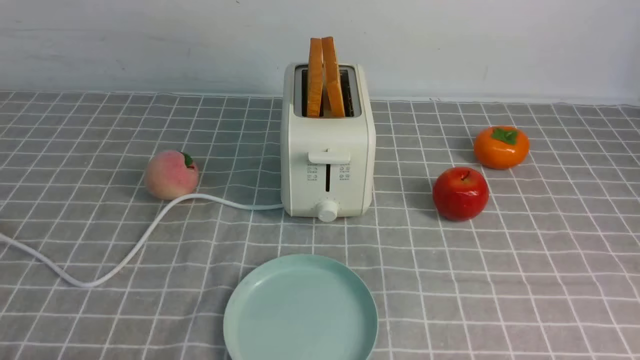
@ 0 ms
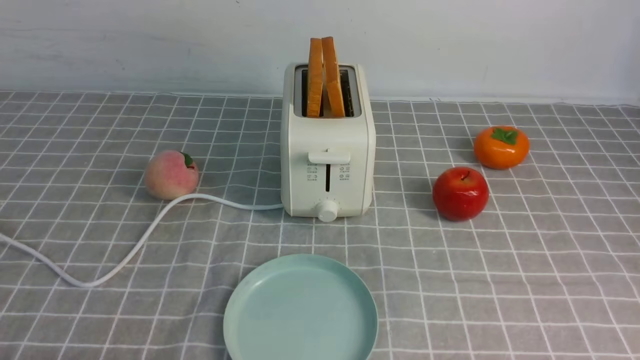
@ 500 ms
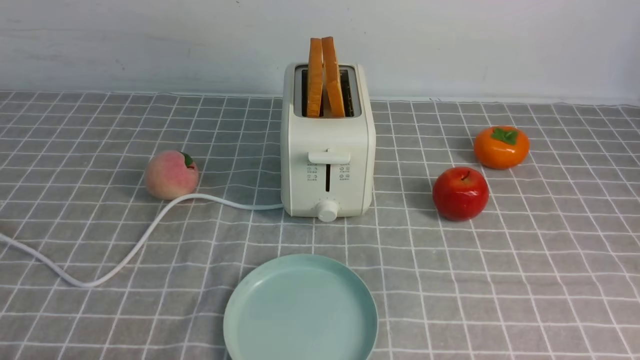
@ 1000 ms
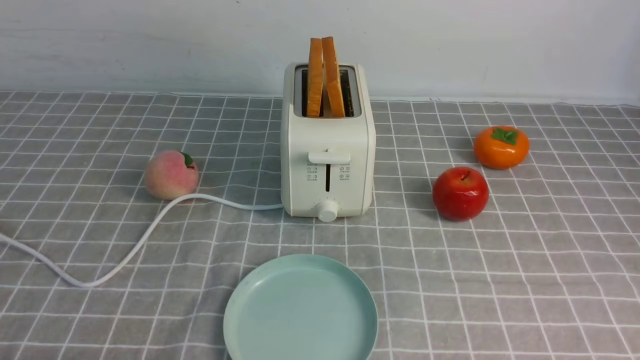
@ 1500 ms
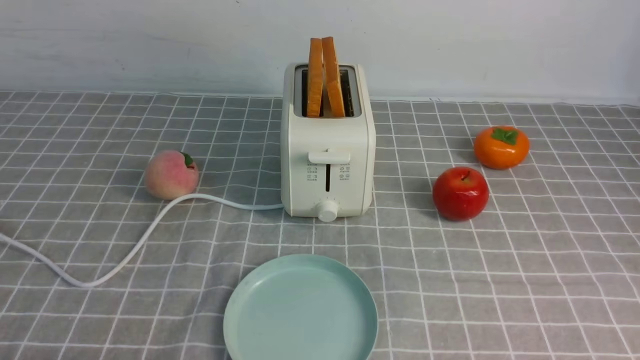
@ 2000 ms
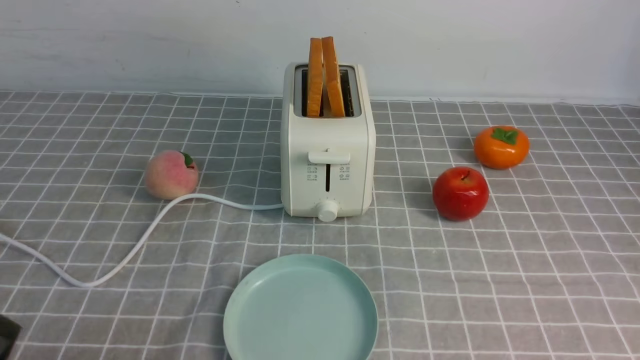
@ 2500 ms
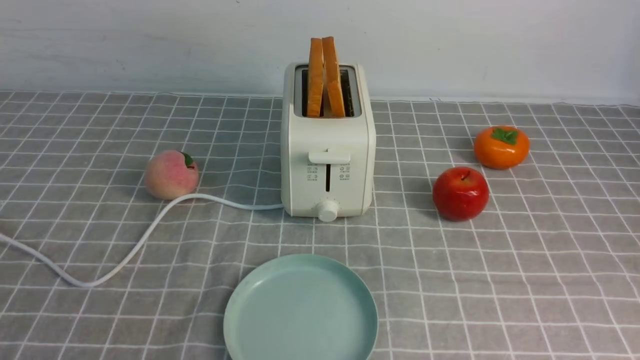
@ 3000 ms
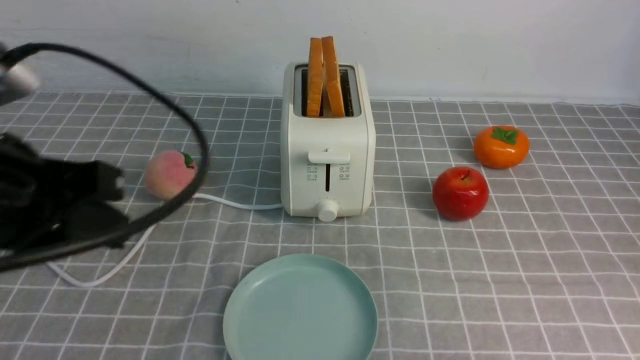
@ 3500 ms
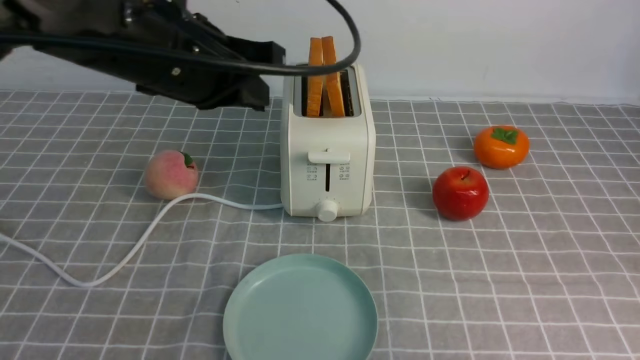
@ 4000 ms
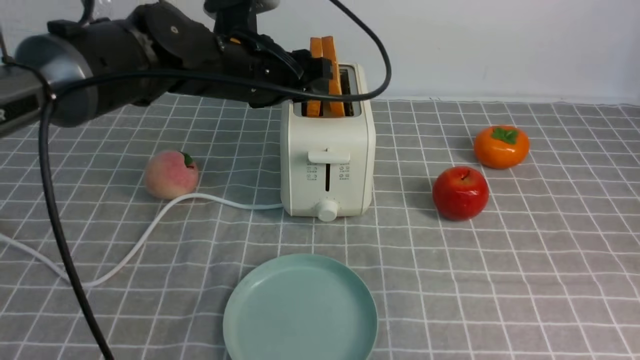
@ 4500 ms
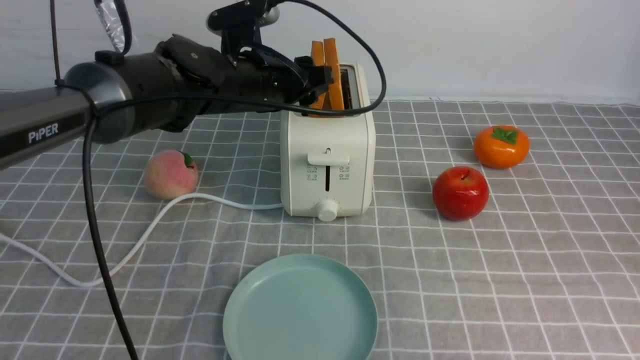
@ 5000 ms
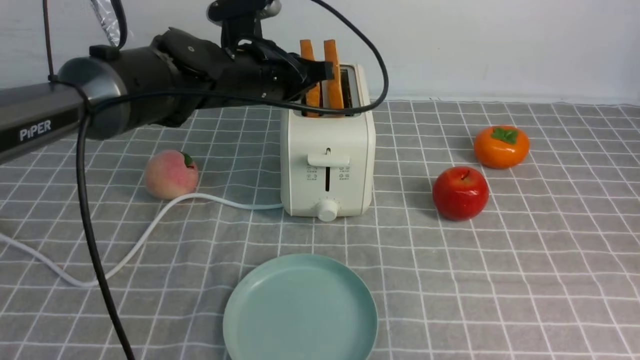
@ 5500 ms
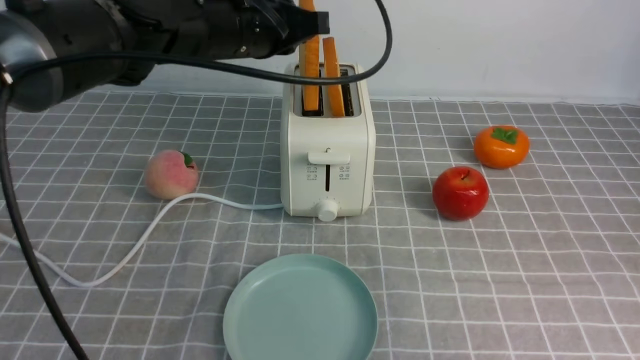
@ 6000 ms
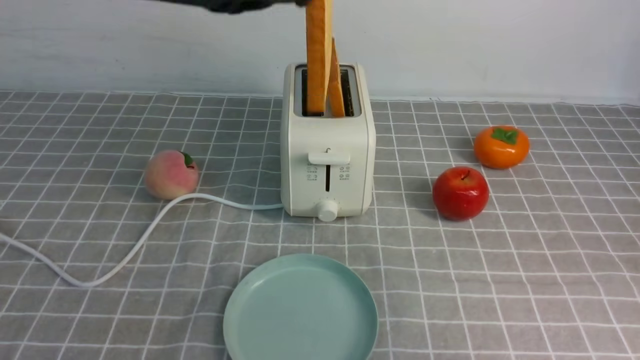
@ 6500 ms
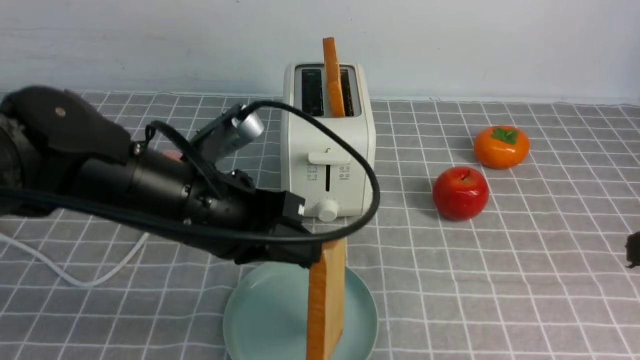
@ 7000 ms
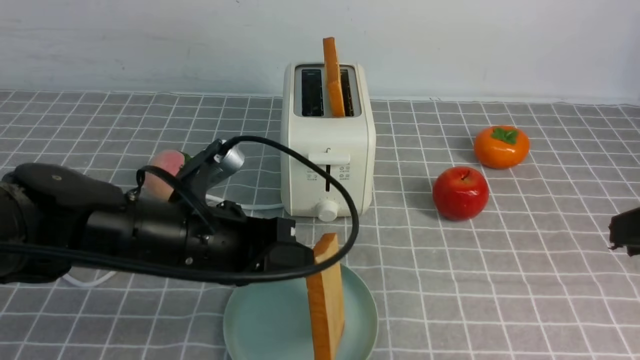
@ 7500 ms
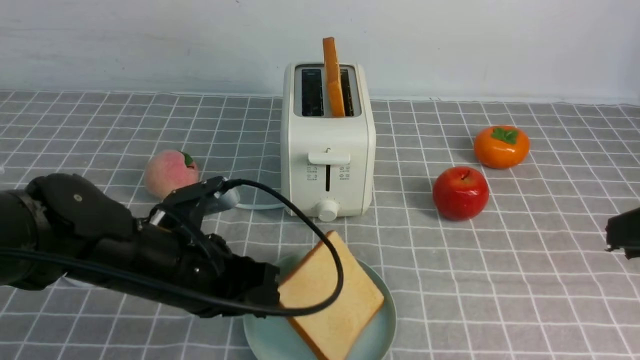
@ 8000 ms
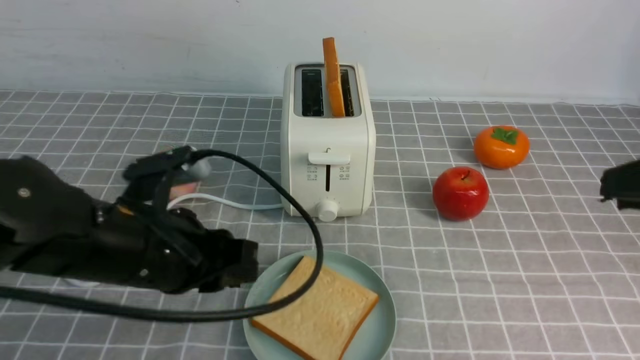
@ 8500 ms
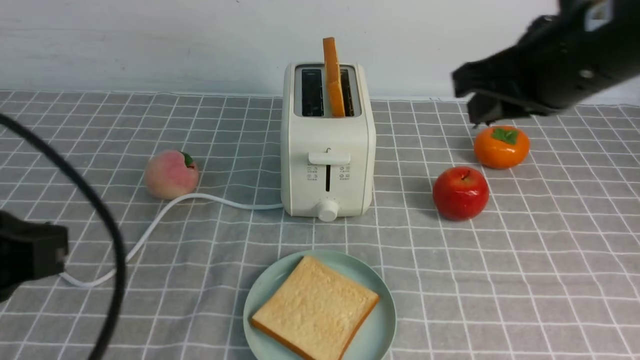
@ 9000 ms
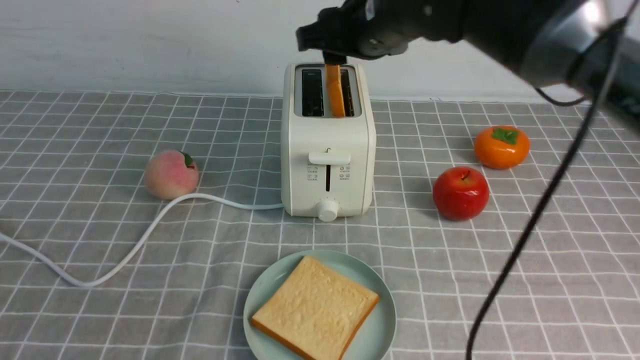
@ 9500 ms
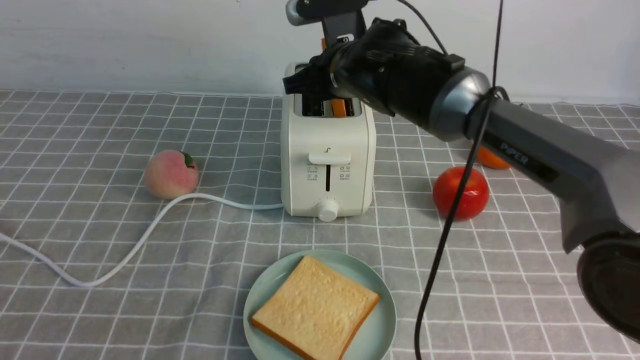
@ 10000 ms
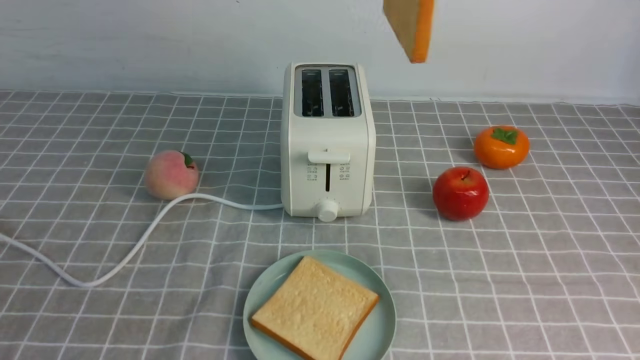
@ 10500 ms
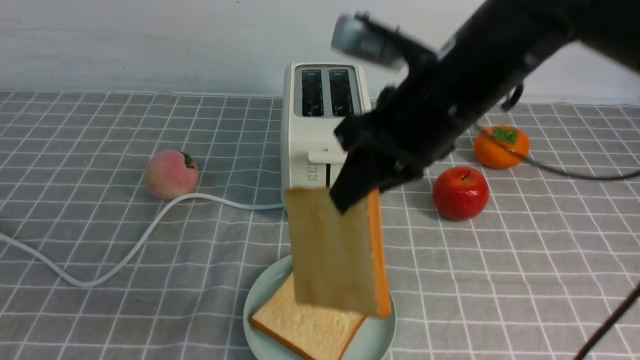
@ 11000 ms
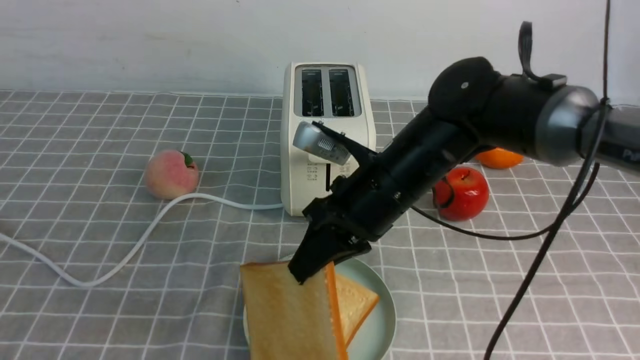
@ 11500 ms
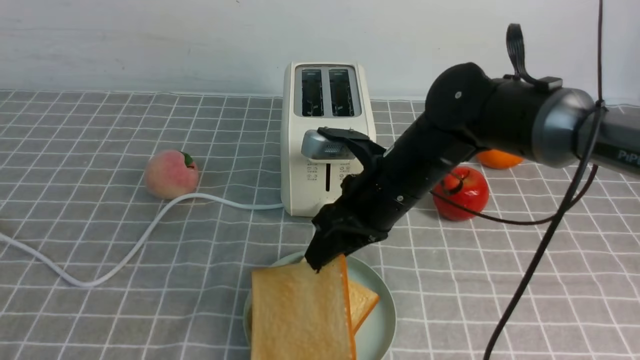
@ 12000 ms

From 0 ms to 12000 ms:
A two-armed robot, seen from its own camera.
Task of the whole recording: take toasted bread from bread machine on grey coffee table place on plate.
Step, from 0 ms to 6000 ms: use the left arm to take out a slice of bread.
Step, from 6500 ms to 8000 ms: use the left arm to put a slice of bread into the empty plate.
Step, from 8500 ms to 10000 ms: use the right arm to take out a slice of bread.
From 2000 ms to 4000 ms: The left gripper heads forward, upward and to the right, covering some 35 cm, and closes its fingers. Meanwhile the right gripper heads upward and forward, covering some 20 cm, and closes.
From 4000 ms to 6000 ms: The left gripper goes roughly 10 cm forward, and opens, then closes once more.
From 6000 ms to 8000 ms: The left gripper travels backward and downward by about 20 cm.
From 8000 ms to 10000 ms: The left gripper goes some 25 cm backward, upward and to the left, while the right gripper is displaced forward and to the left by about 35 cm, and opens its fingers.
From 10000 ms to 12000 ms: The right gripper shifts roughly 10 cm backward, reaches some 15 cm upward, then returns, and closes, then opens again.

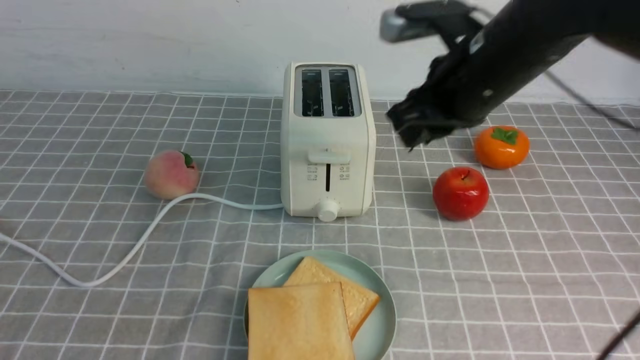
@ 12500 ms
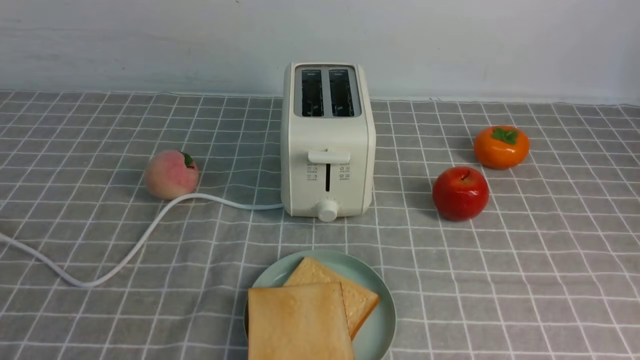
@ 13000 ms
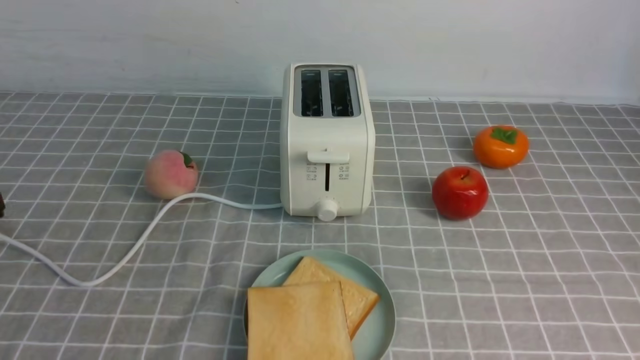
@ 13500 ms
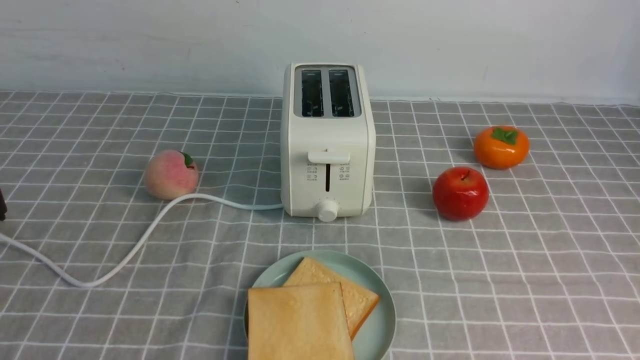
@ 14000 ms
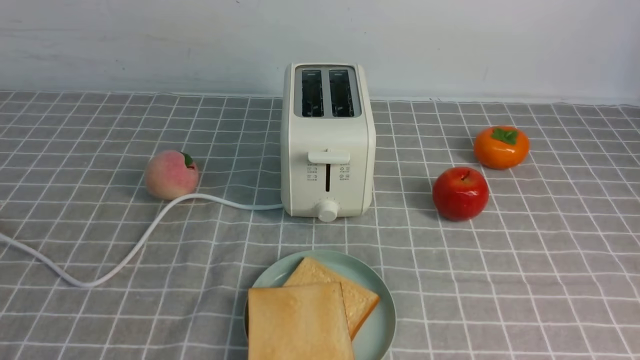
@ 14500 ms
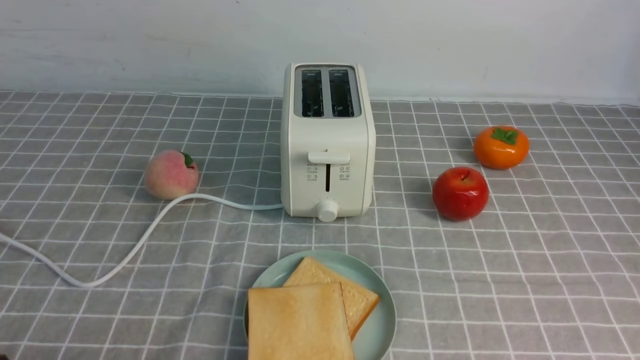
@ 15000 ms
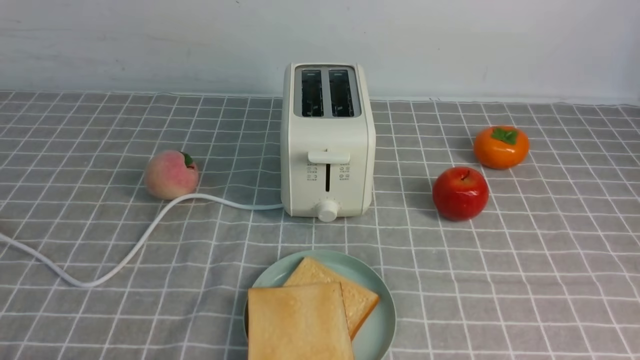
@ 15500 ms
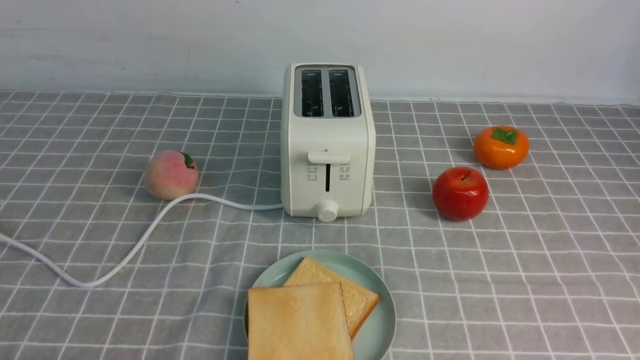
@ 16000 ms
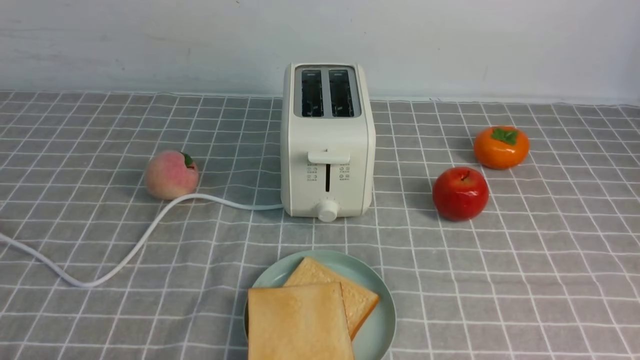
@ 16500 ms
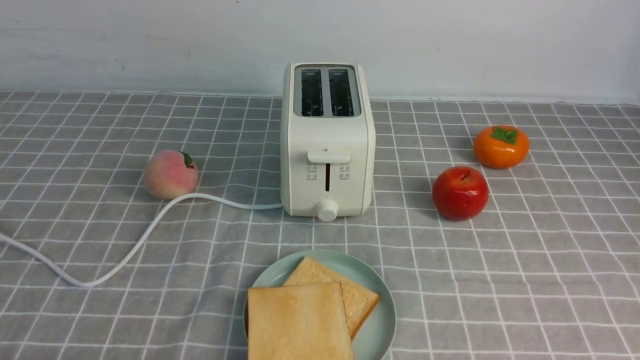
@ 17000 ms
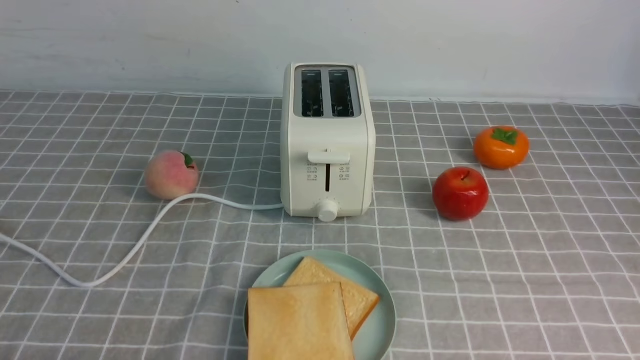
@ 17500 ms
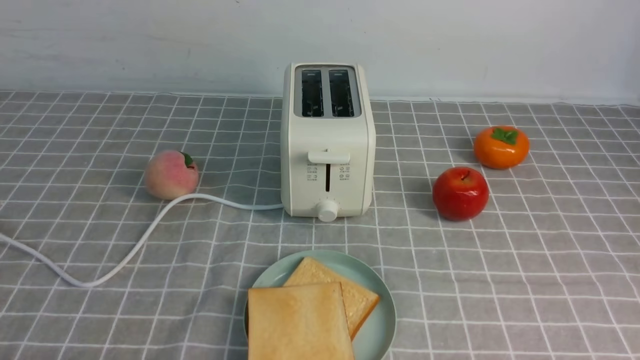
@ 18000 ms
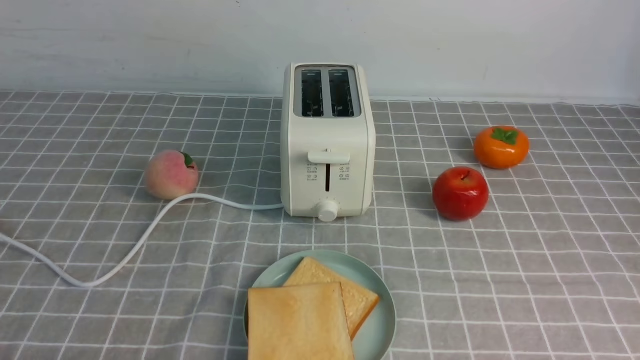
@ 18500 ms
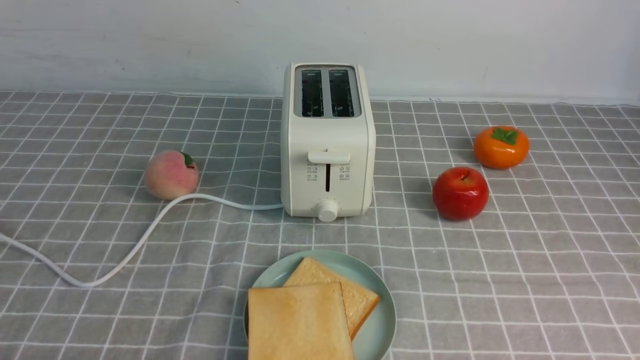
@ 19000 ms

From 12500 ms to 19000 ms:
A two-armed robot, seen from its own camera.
Task of the whole recording: take toasted bread from bread machine on grey coffee table place on plate.
From 12500 ms to 14500 ms: The right gripper is displaced backward and to the right by approximately 40 cm, and closes.

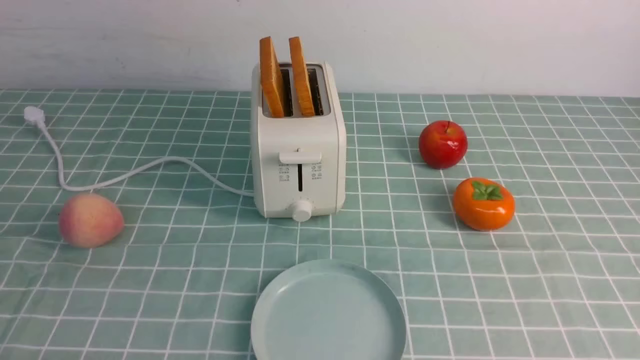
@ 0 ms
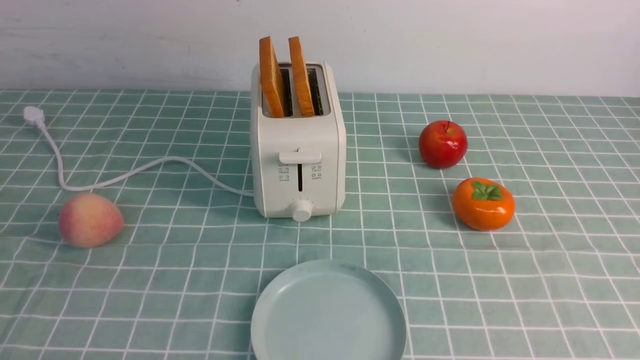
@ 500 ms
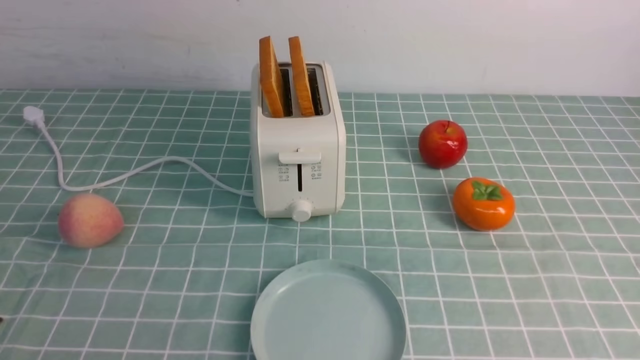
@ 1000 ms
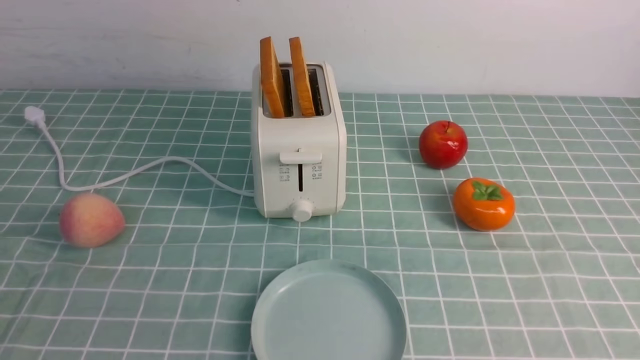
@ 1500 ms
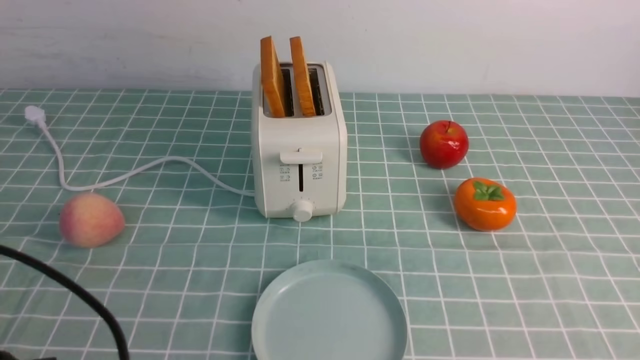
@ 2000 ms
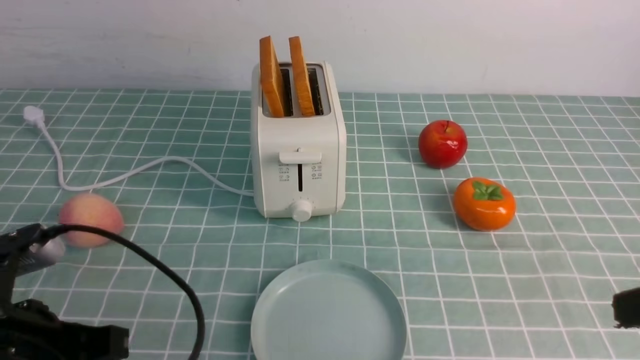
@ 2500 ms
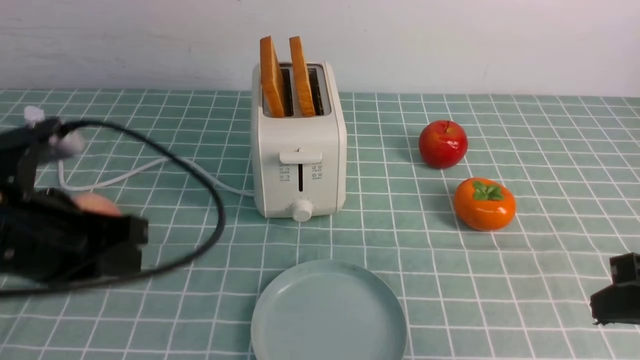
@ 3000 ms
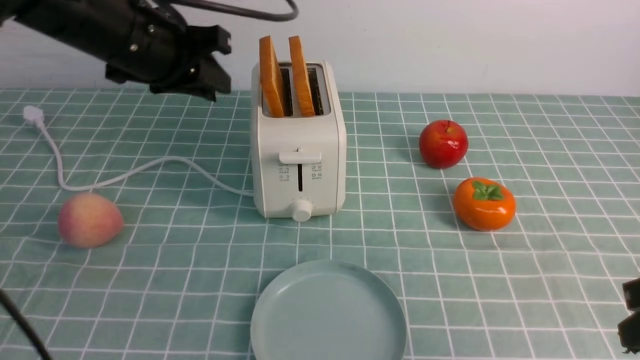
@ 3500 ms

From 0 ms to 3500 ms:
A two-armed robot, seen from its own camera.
Task of the whole recording: take toasted bread from bread machine on blue coffee table place on plate.
From 0 ms to 2000 ms: The left gripper shifts approximately 10 cm upward, and closes.
From 2000 ms to 3500 ms: The right gripper heads forward, covering approximately 10 cm, while the left gripper is displaced forward by roughly 30 cm, and opens its fingers.
